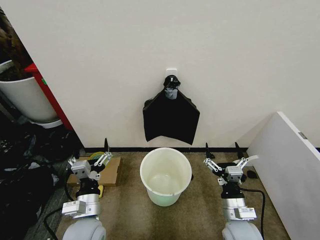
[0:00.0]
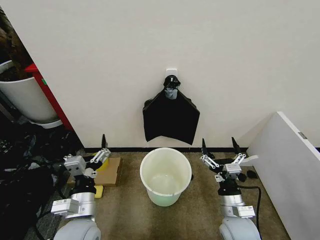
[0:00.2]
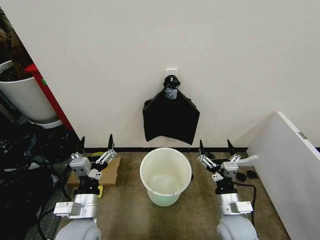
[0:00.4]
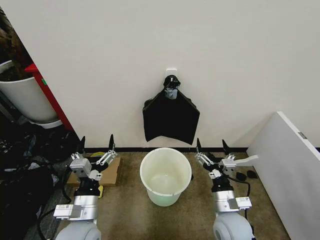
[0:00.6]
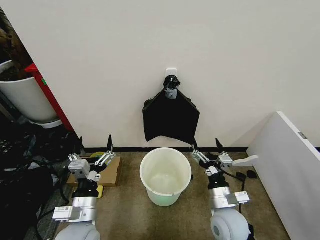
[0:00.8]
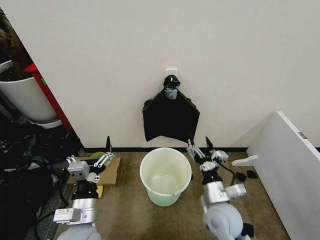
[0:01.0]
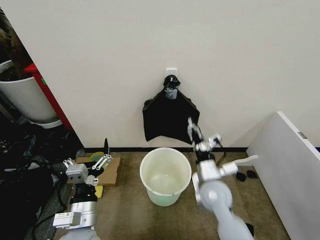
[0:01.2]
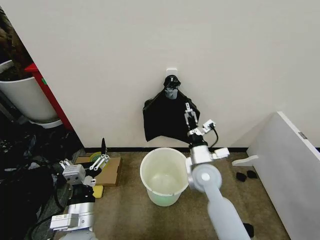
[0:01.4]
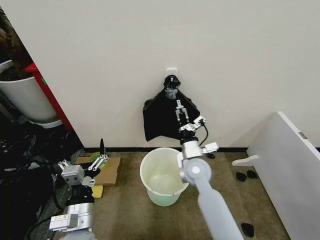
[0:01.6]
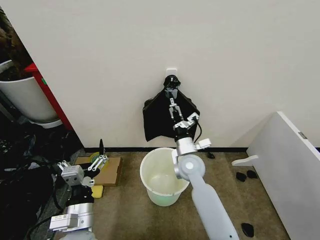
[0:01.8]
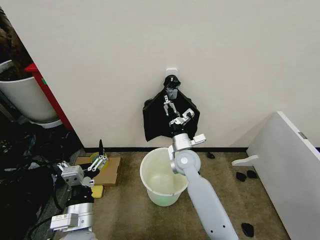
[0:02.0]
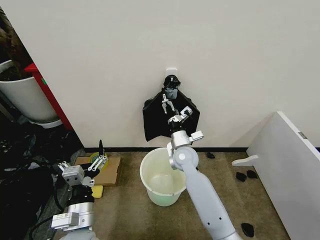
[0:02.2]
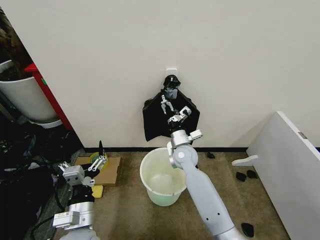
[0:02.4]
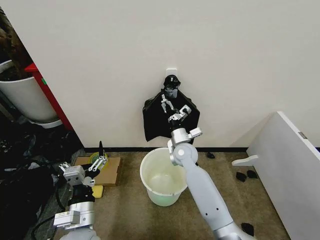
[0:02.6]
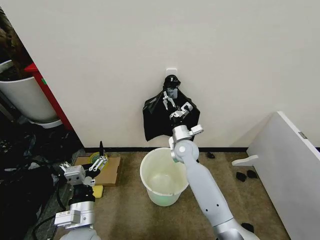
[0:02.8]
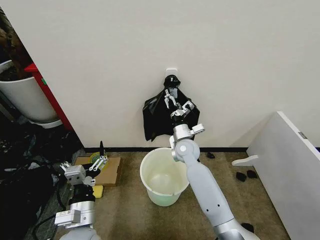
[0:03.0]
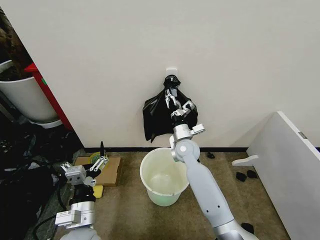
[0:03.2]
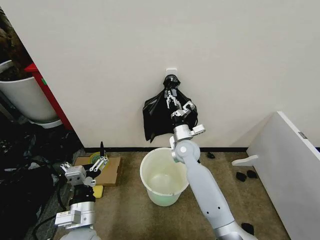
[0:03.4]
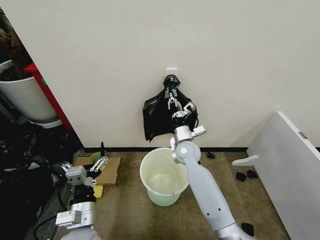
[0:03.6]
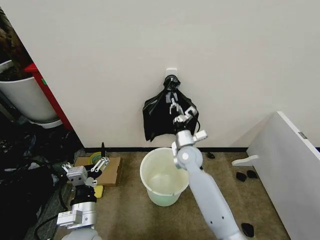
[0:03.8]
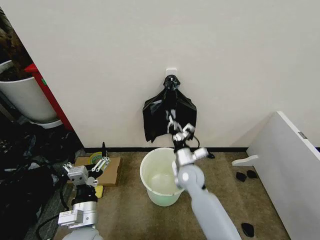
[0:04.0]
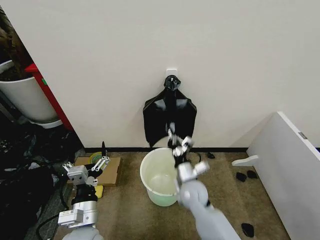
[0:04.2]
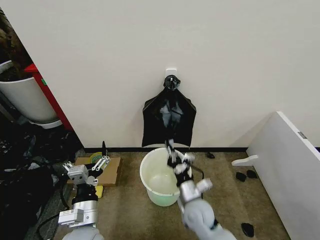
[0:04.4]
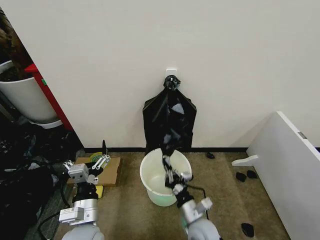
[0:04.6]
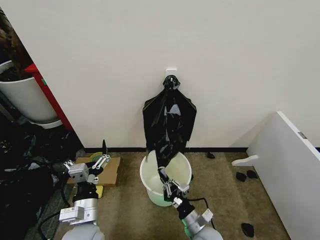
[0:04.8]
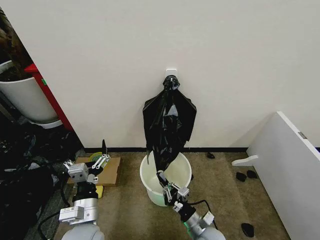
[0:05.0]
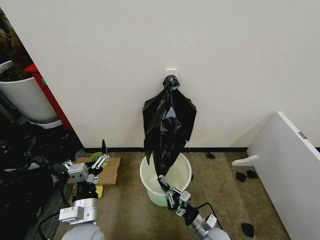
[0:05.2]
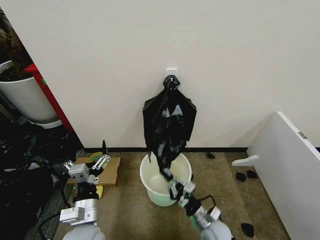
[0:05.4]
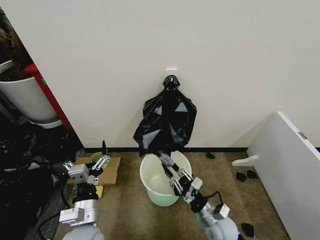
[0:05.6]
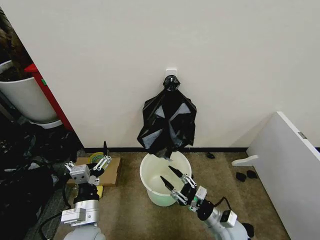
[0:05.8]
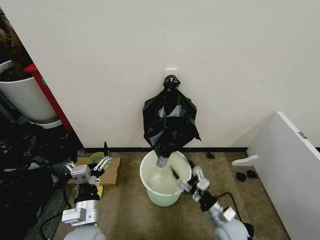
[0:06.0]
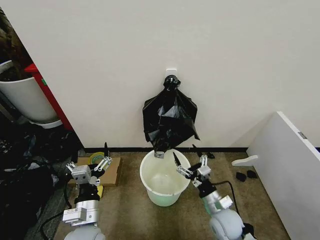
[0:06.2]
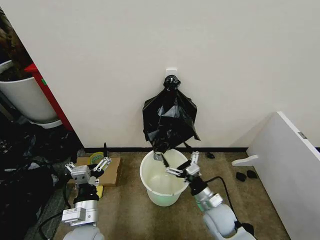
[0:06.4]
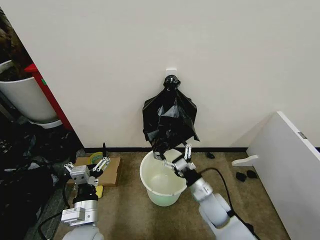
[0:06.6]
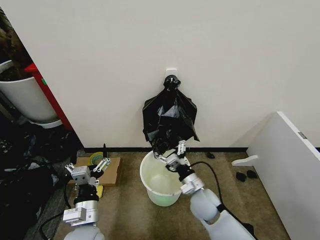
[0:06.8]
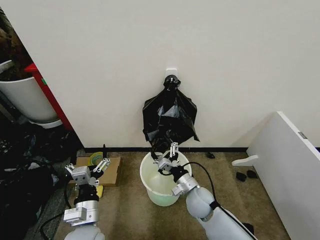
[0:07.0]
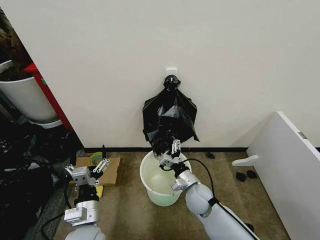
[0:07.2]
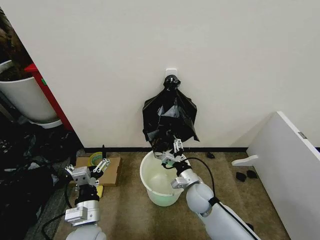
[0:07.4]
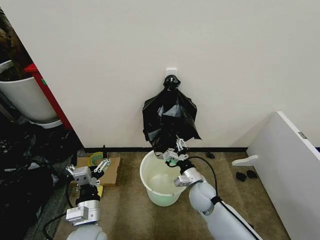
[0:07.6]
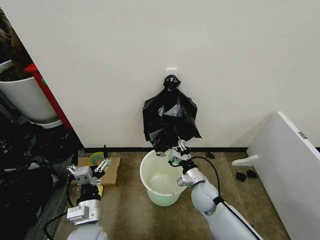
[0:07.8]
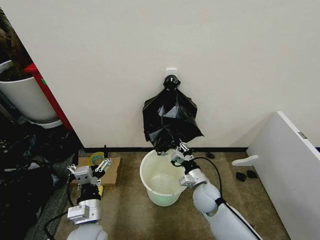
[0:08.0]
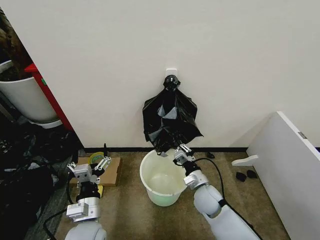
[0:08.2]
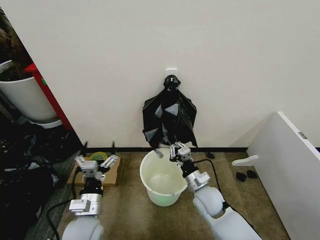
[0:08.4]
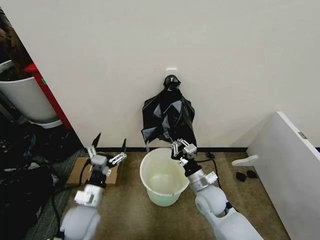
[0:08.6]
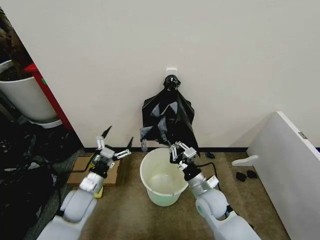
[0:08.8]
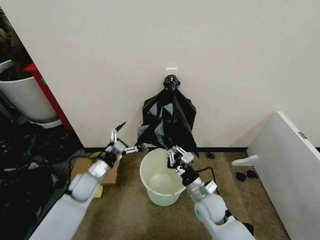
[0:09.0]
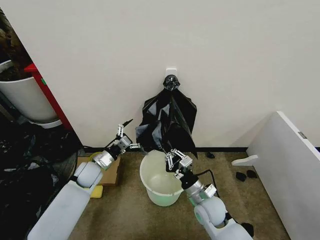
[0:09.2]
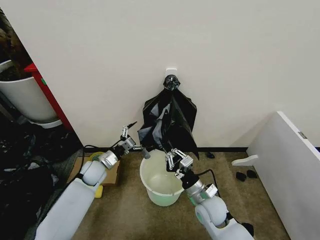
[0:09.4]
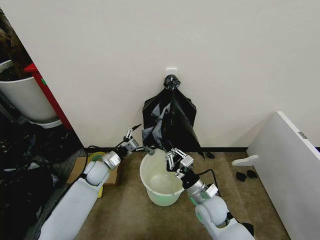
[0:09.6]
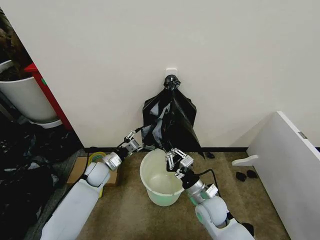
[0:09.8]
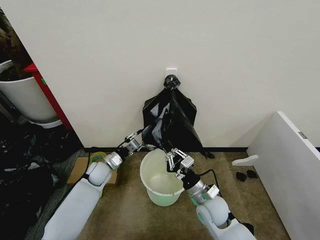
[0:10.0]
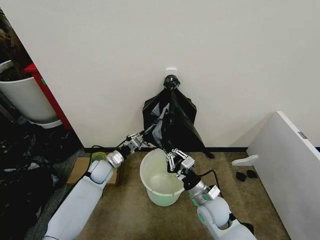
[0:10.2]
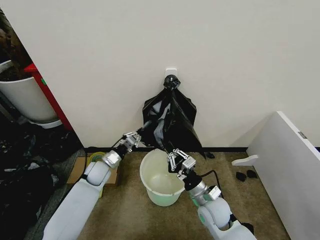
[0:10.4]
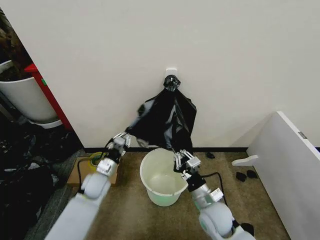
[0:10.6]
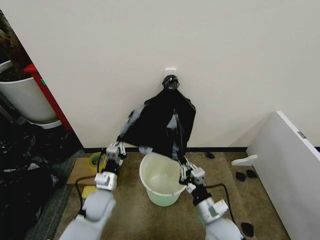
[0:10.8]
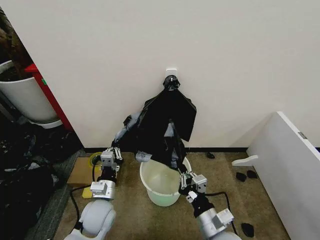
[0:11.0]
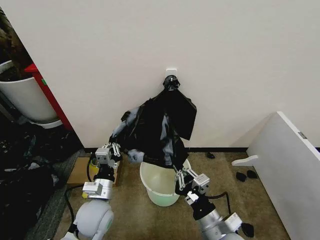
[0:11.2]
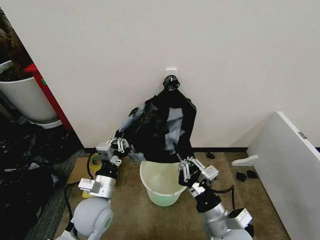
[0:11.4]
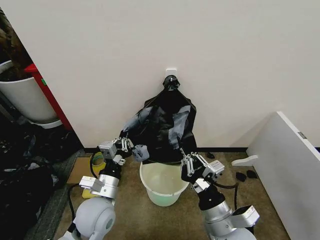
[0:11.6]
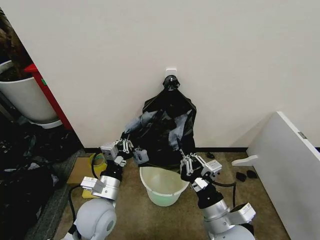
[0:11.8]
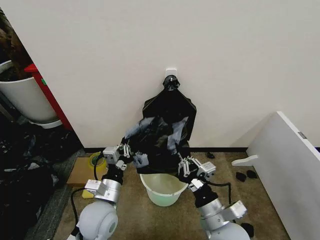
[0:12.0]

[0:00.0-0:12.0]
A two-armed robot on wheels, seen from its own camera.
Task of the whole recording: Place the garbage bag over the trash bin.
0:01.6 to 0:03.0: The right gripper heads forward, covering roughly 10 cm.
0:03.0 to 0:04.4: The right gripper travels backward and downward by approximately 25 cm, and closes its fingers.
0:04.4 to 0:06.0: The right gripper shifts approximately 10 cm to the right, and opens.
0:06.0 to 0:07.6: The right gripper moves forward and to the left, roughly 15 cm, and opens and closes again.
0:07.6 to 0:09.0: The right gripper closes up. Meanwhile the left gripper shifts about 20 cm forward and to the left.
0:09.0 to 0:10.4: The left gripper travels forward by roughly 5 cm, and closes its fingers.
0:10.4 to 0:12.0: The right gripper heads backward and upward, covering about 15 cm. Meanwhile the left gripper shifts approximately 20 cm backward, upward and to the right.

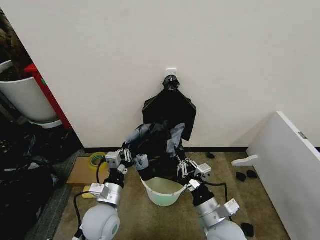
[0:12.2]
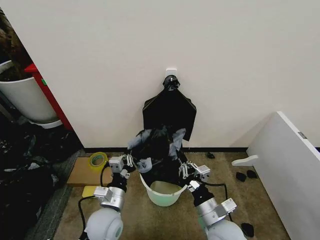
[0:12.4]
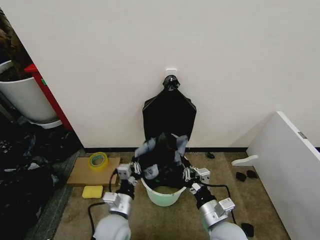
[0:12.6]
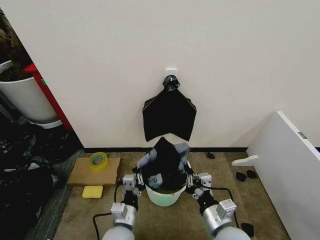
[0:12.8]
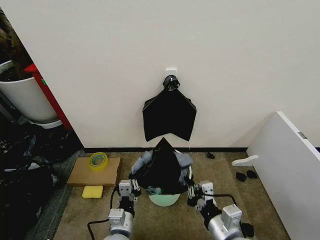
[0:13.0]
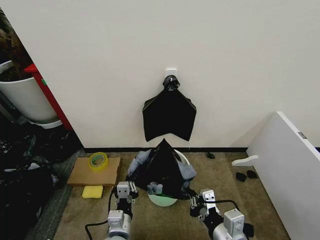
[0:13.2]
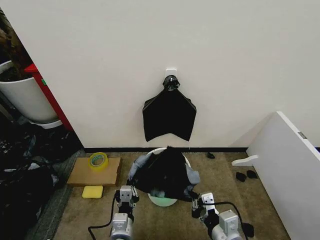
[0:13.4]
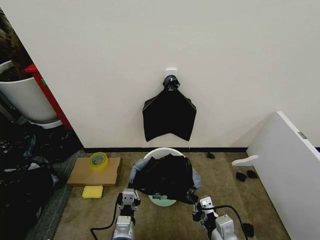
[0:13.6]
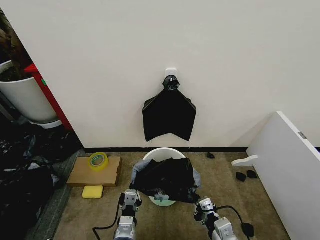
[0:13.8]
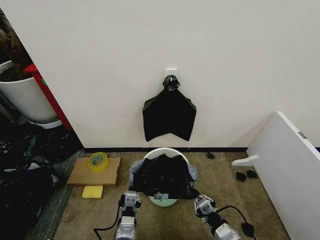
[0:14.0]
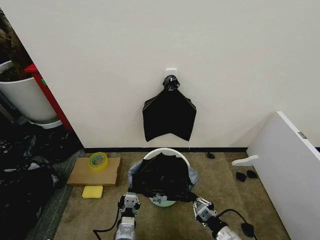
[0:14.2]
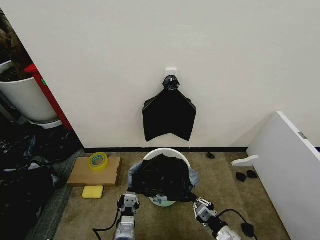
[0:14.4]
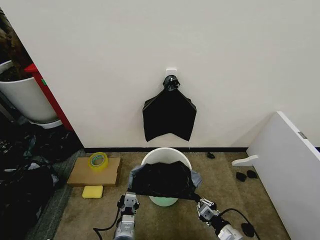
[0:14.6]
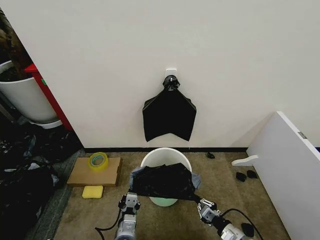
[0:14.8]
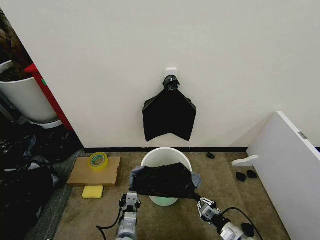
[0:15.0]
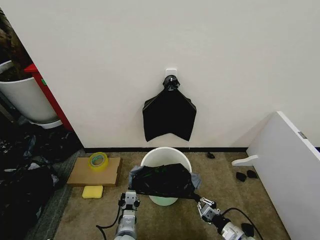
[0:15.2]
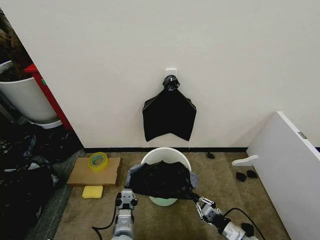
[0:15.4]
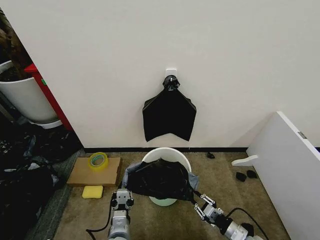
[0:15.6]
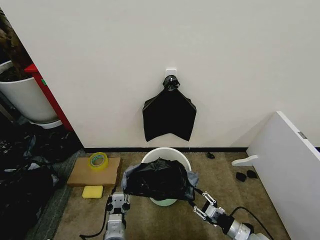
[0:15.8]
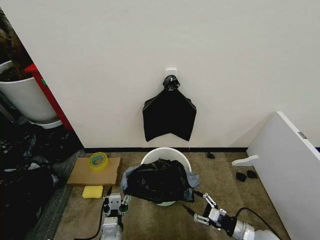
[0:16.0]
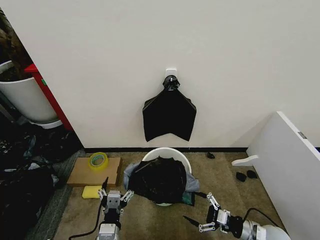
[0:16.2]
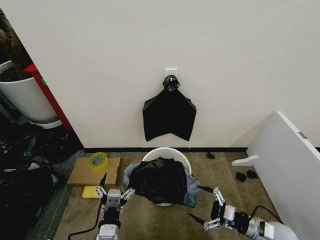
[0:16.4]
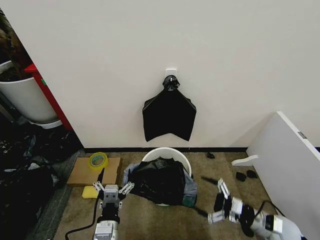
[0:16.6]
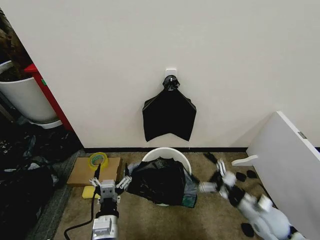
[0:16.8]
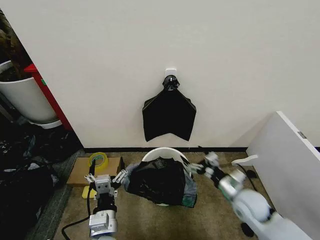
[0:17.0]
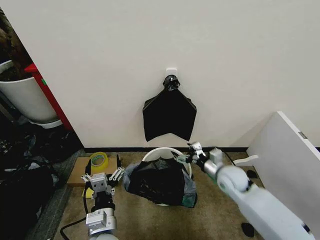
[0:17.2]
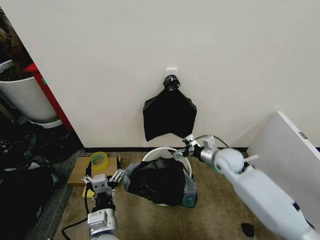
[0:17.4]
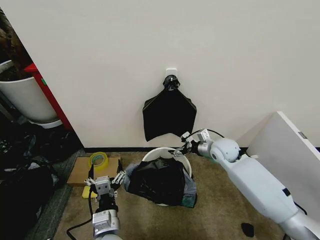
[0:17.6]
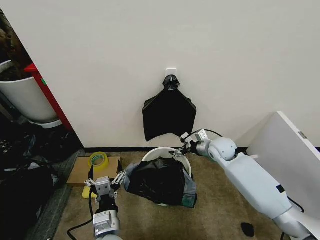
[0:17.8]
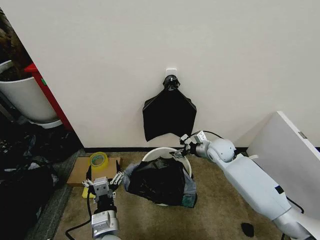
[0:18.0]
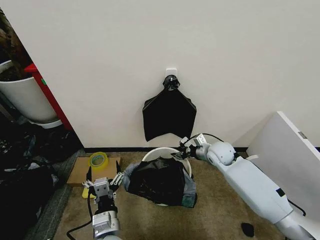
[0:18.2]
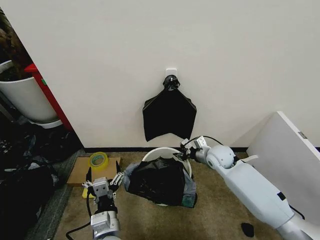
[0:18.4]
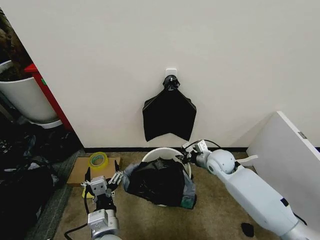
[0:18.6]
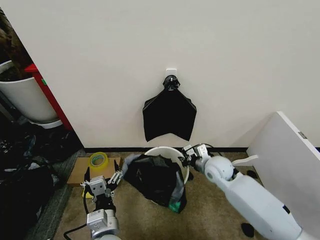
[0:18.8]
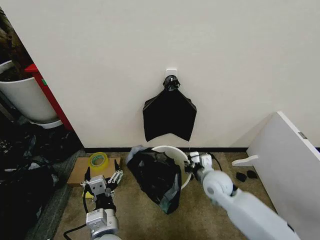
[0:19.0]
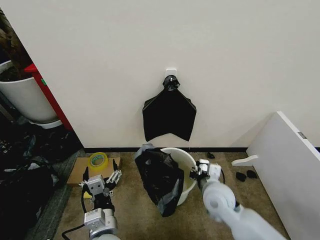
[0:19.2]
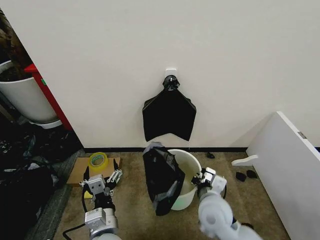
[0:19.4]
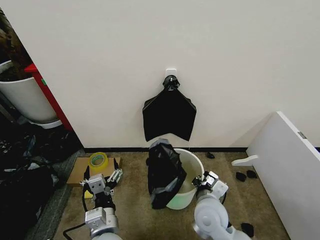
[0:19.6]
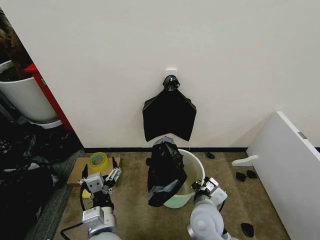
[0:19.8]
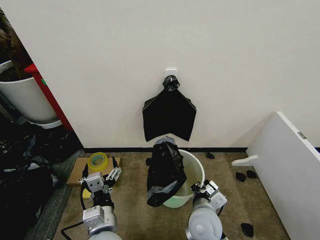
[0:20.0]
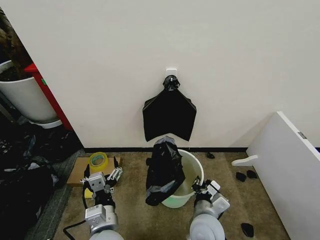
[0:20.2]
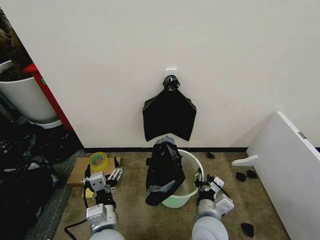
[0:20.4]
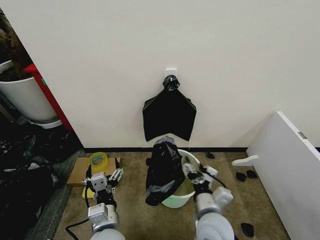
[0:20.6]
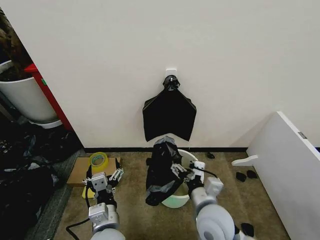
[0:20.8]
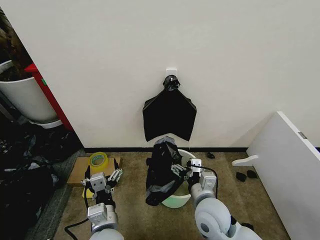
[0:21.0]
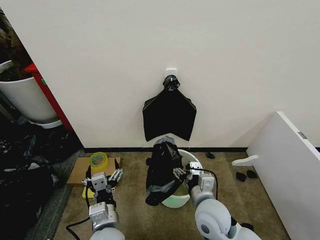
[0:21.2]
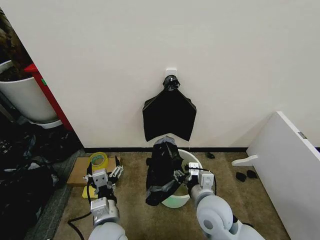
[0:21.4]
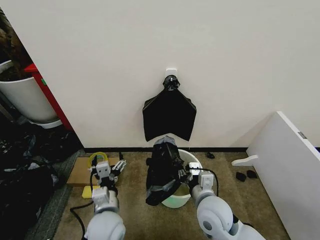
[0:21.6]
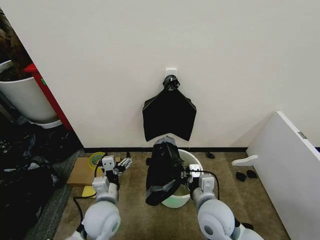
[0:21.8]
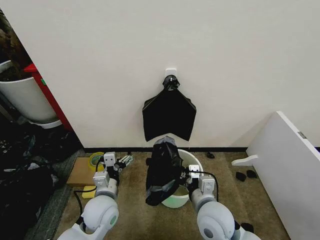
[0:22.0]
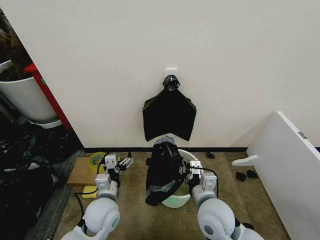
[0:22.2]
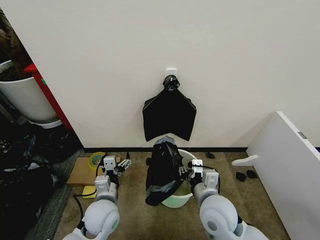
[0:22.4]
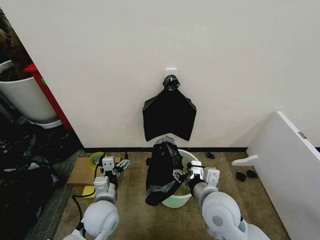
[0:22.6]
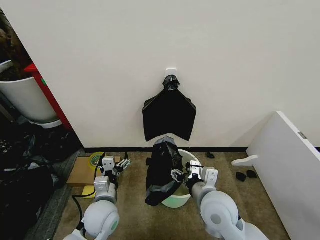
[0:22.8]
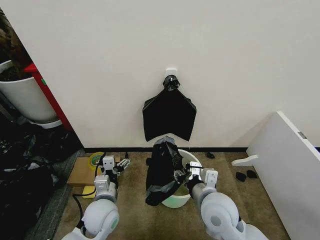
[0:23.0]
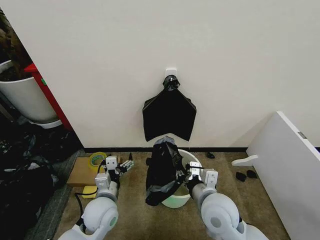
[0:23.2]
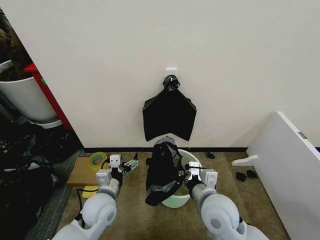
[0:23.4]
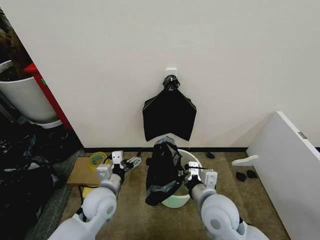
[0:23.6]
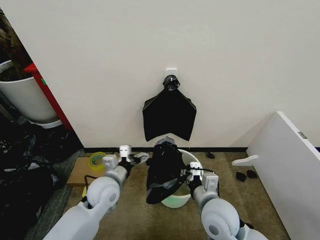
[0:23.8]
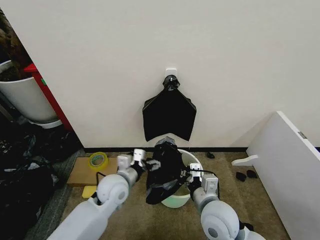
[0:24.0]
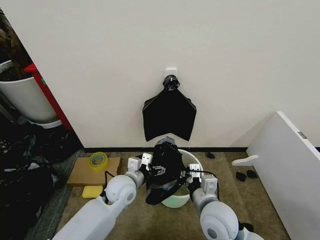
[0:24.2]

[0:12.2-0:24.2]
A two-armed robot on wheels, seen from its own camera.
Task of the whole recording: Place the garbage bag over the trash bin.
0:12.2 to 0:13.8: The right gripper is displaced backward by approximately 5 cm, while the left gripper heads downward, backward and to the right, covering some 15 cm.
0:13.8 to 0:15.2: The right gripper travels downward and to the right by approximately 20 cm.
0:15.2 to 0:16.6: The right gripper goes some 10 cm upward and to the right, and opens, while the left gripper goes roughly 10 cm upward, and opens its fingers.
0:16.6 to 0:18.2: The right gripper heads forward, to the left and upward, covering approximately 30 cm, and closes its fingers.
0:18.2 to 0:19.8: The right gripper moves backward and to the left, about 25 cm, and closes its fingers.
0:19.8 to 0:21.2: The right gripper opens up.
0:21.2 to 0:22.6: The right gripper closes and opens again. Meanwhile the left gripper heads forward, covering some 10 cm.
0:22.6 to 0:24.2: The left gripper is displaced forward by roughly 10 cm, while the right gripper closes up.
